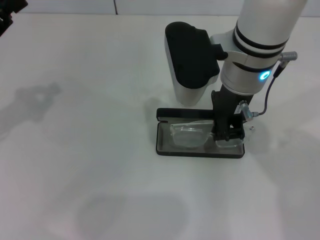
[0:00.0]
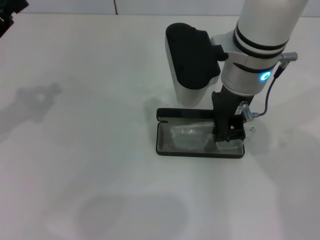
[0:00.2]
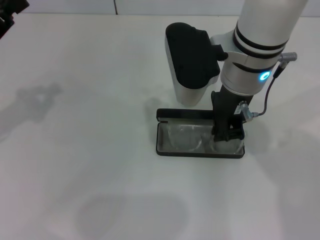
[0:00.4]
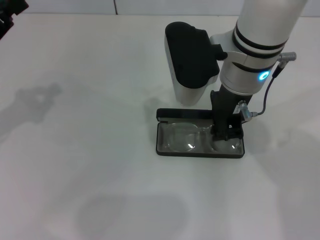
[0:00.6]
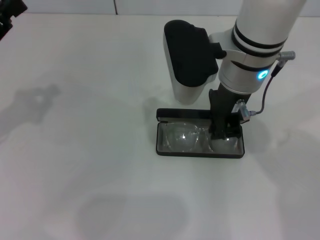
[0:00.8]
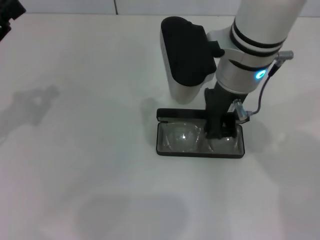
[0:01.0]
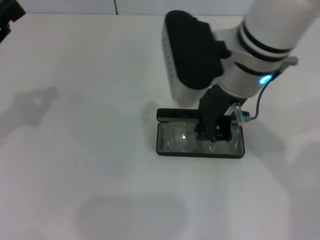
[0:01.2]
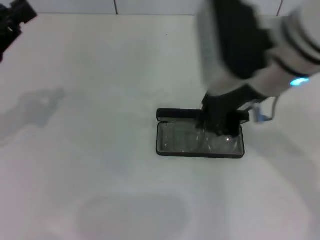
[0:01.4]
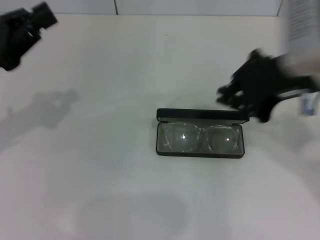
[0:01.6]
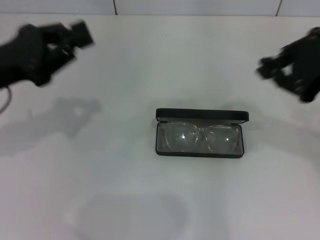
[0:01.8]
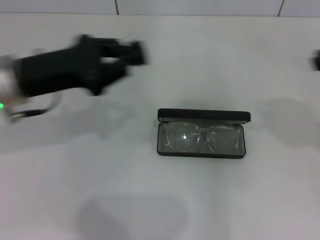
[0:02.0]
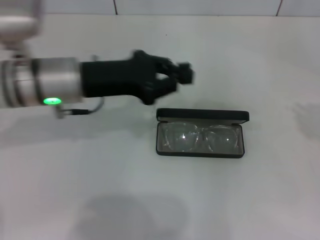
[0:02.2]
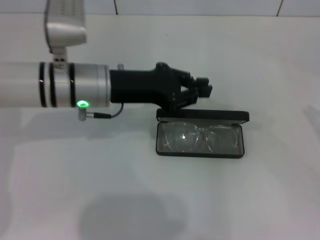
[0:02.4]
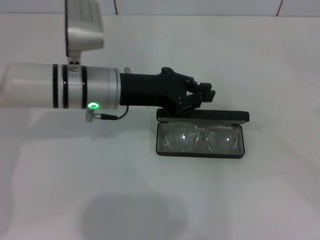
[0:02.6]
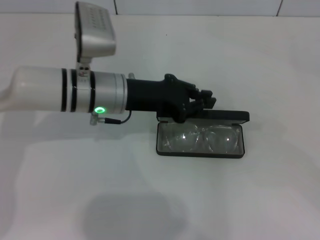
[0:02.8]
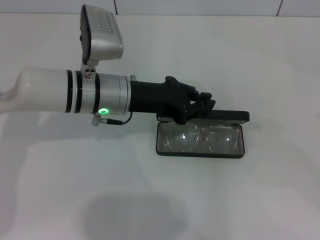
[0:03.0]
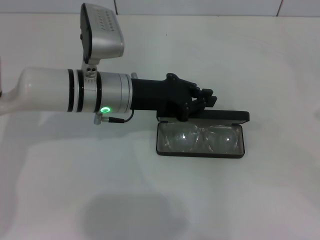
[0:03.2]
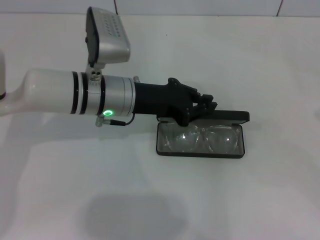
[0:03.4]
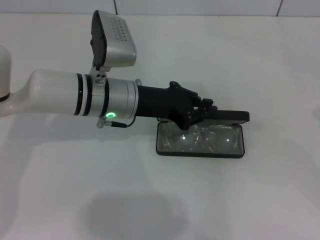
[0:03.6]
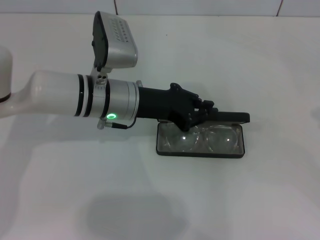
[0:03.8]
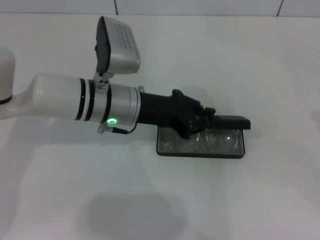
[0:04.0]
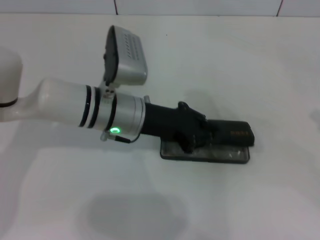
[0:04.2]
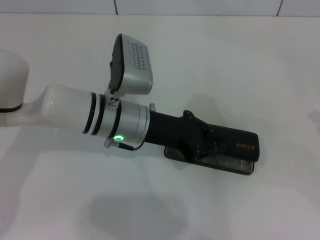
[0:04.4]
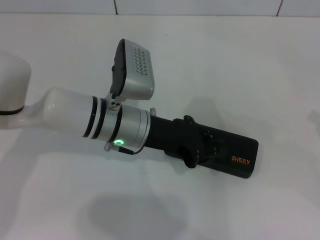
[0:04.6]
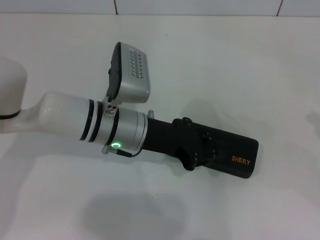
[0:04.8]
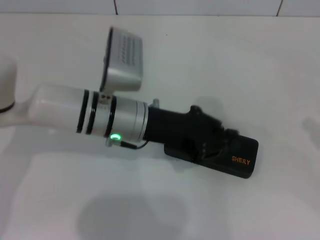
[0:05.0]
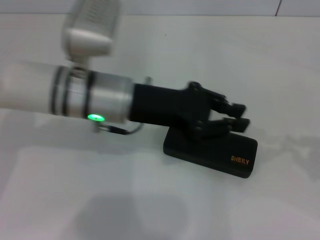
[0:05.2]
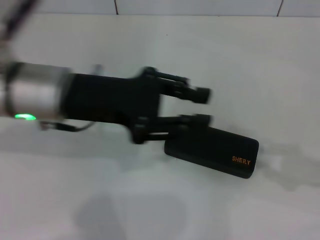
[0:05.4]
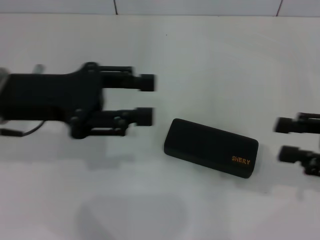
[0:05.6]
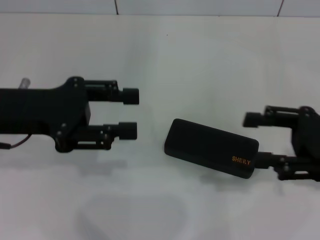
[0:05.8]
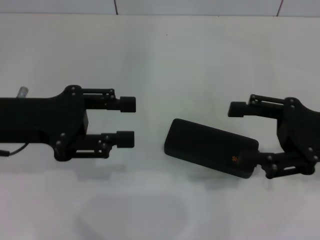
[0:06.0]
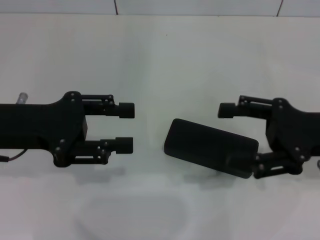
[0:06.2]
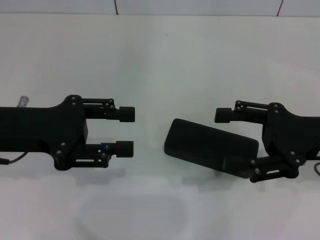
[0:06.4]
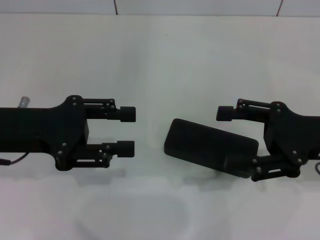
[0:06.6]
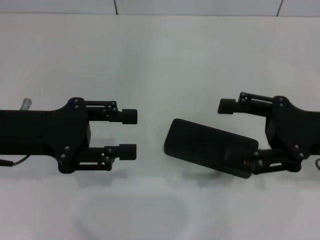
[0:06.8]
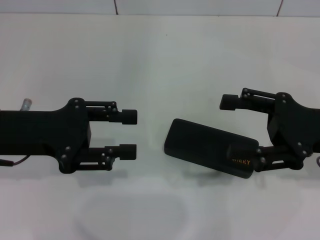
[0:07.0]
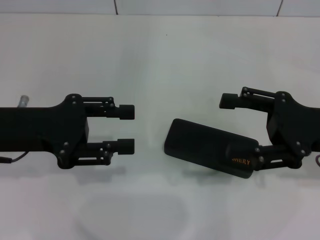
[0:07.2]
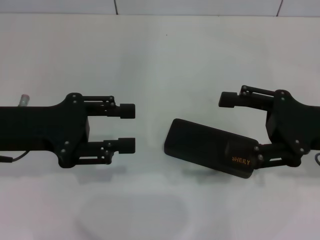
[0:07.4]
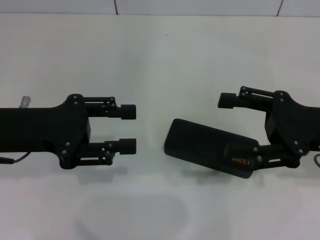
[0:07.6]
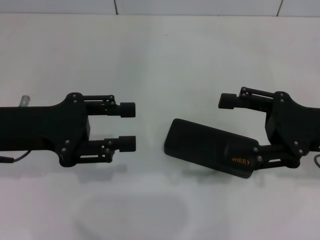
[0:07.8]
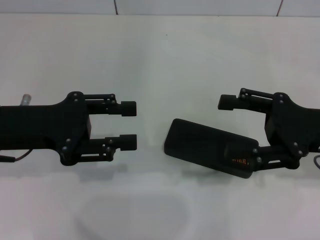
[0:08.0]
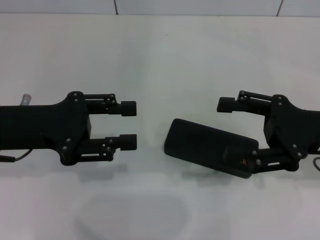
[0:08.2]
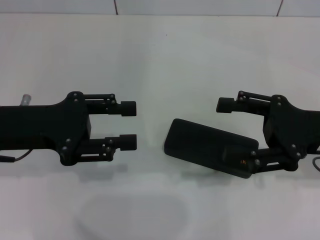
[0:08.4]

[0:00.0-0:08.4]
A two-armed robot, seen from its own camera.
Step, 0:01.0 to 0:05.0: Close the glasses case with your left hand.
0:00.0 to 0:01.4: The right gripper shifts by roughly 5 cm.
0:01.4 to 0:02.8: The right gripper moves to the right, about 35 cm; the left gripper is displaced to the right and forward by about 20 cm.
0:02.8 to 0:04.2: The grippers move only a little.
0:04.2 to 0:05.6: The left gripper moves to the left, upward and backward, approximately 15 cm, and opens its fingers, while the right gripper is displaced to the left by some 10 cm.
0:05.6 to 0:07.0: The right gripper shifts roughly 5 cm to the left, and opens.
0:07.0 to 0:08.4: Both grippers stay about where they are.
